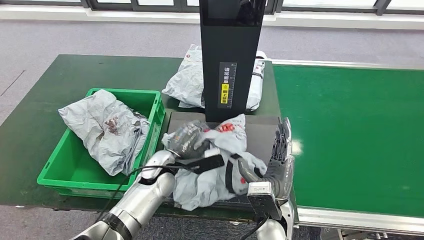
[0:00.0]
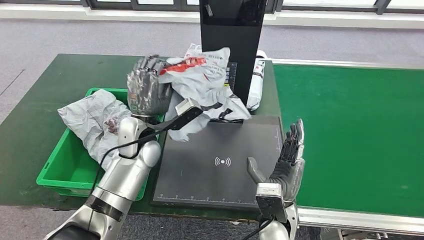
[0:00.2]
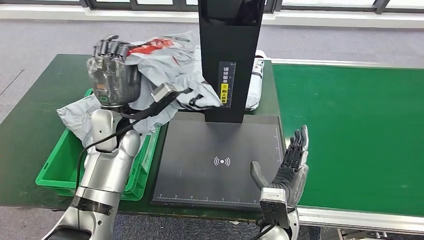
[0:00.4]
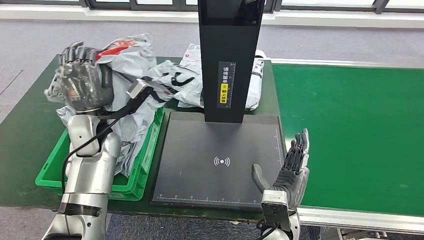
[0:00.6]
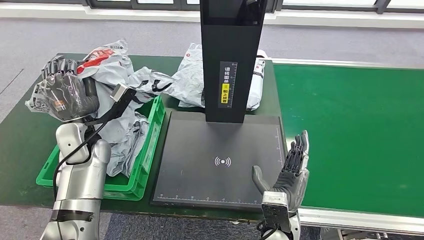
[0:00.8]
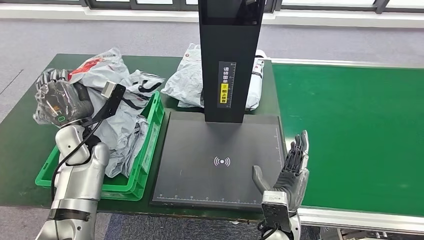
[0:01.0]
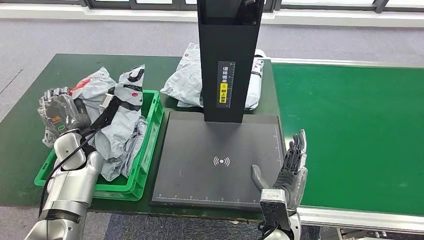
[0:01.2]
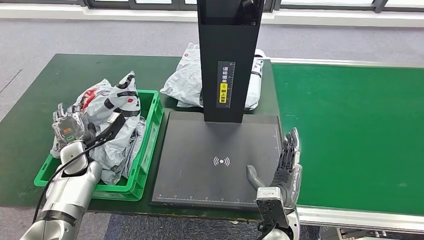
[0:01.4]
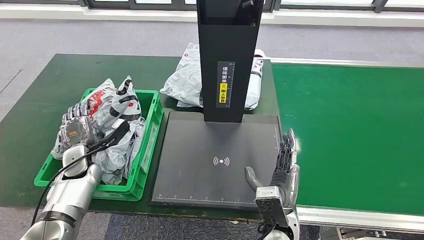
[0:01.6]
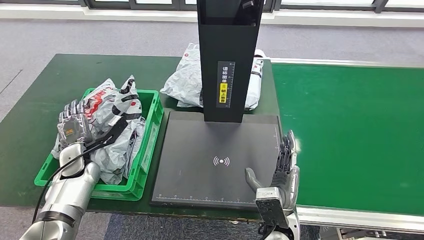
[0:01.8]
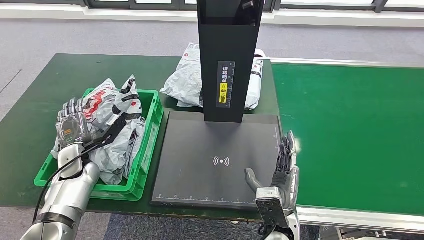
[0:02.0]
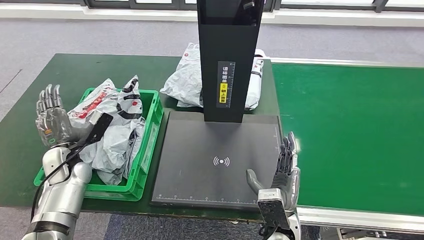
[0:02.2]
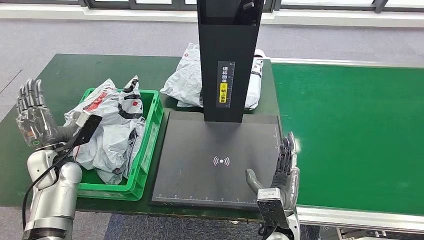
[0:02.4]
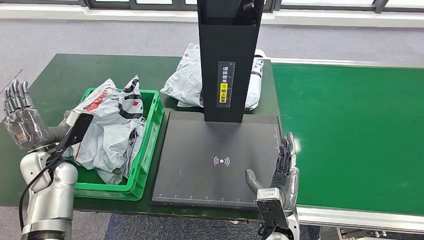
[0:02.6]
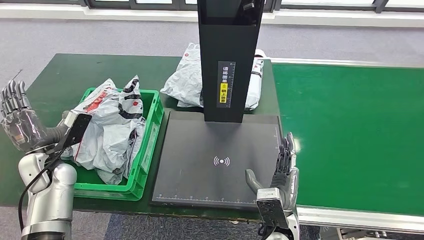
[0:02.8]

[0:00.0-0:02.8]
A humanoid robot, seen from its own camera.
Step, 0:00.2 to 0:02.8: Place the parcel into the delivery box.
0:01.4 to 0:02.8: The left hand ends up about 5 cm from where it was.
